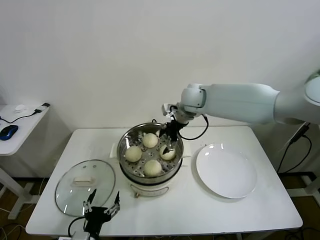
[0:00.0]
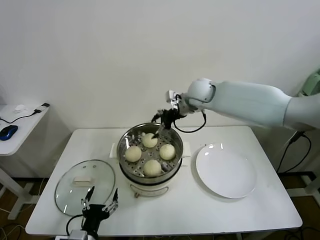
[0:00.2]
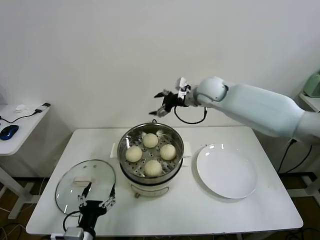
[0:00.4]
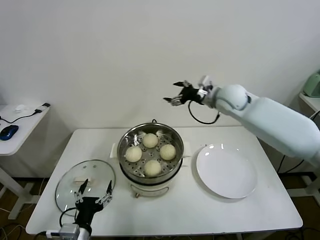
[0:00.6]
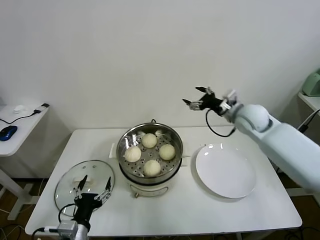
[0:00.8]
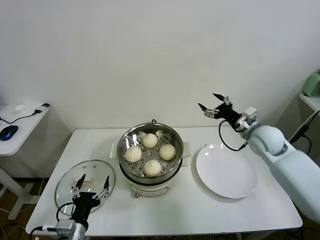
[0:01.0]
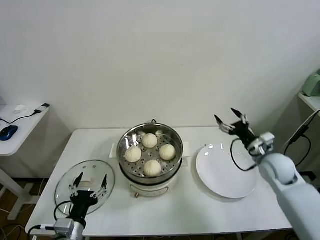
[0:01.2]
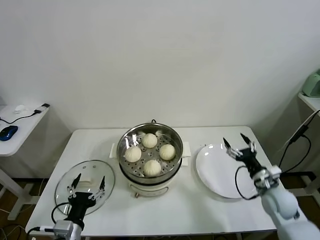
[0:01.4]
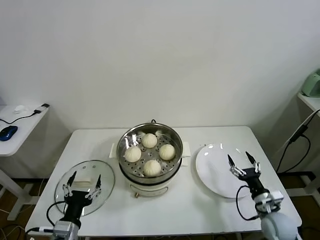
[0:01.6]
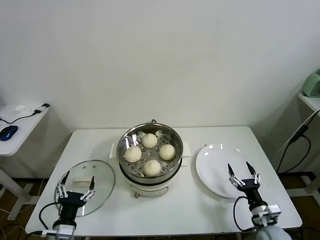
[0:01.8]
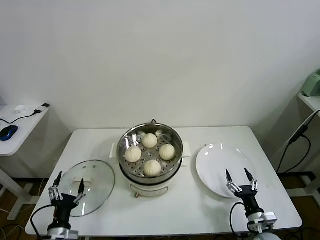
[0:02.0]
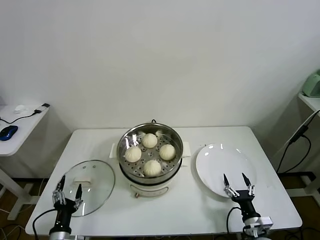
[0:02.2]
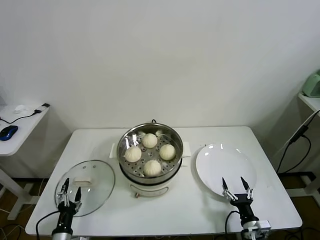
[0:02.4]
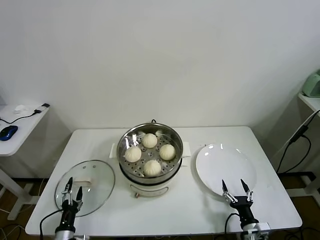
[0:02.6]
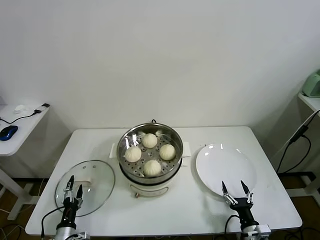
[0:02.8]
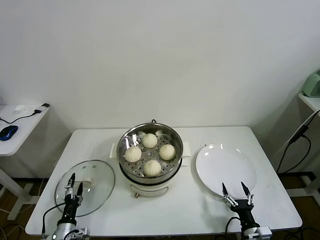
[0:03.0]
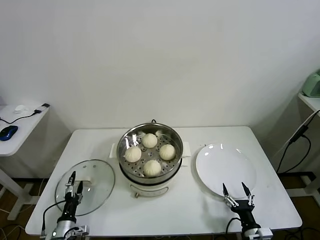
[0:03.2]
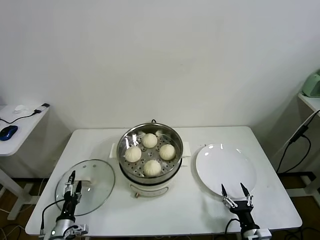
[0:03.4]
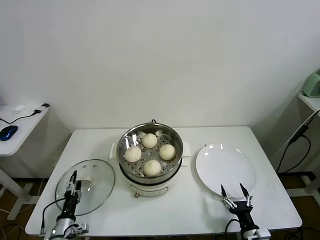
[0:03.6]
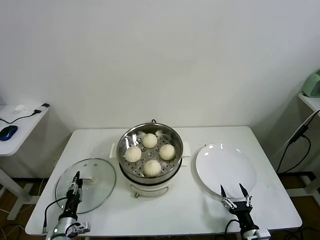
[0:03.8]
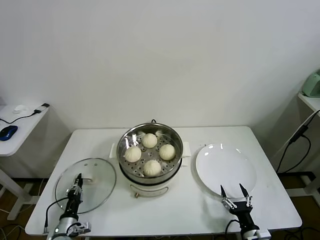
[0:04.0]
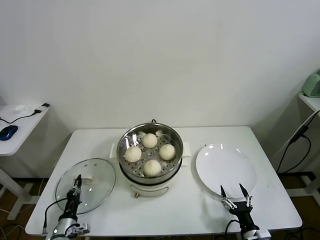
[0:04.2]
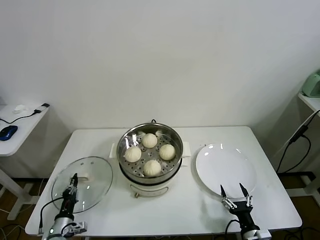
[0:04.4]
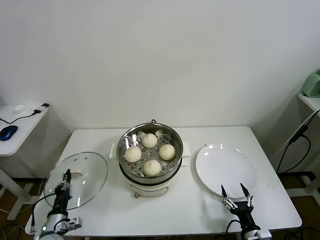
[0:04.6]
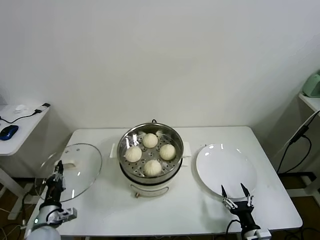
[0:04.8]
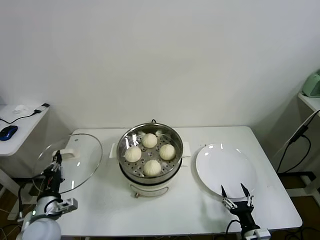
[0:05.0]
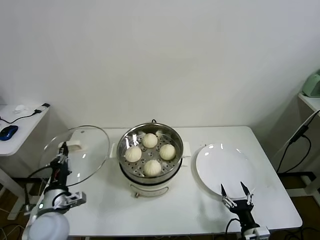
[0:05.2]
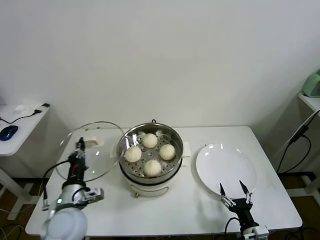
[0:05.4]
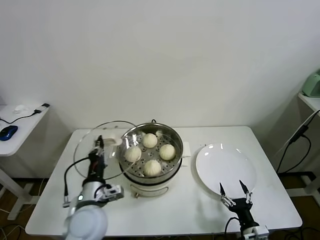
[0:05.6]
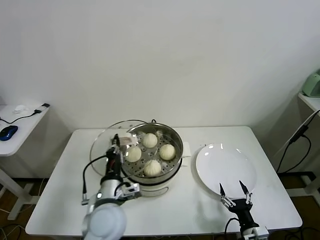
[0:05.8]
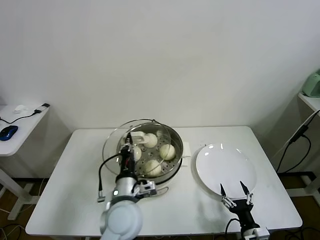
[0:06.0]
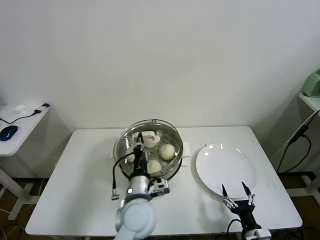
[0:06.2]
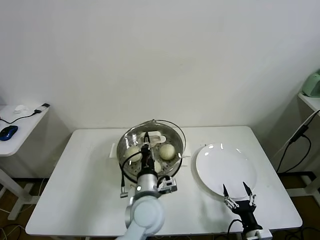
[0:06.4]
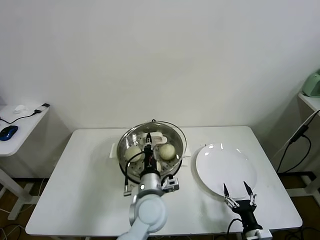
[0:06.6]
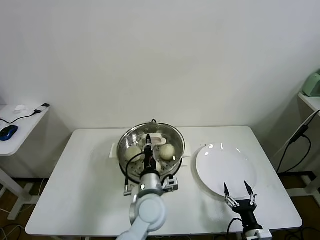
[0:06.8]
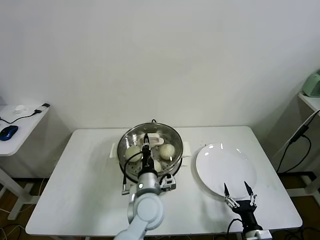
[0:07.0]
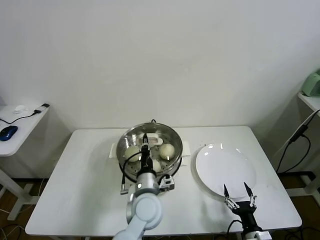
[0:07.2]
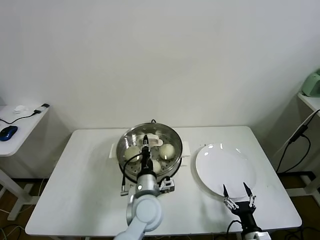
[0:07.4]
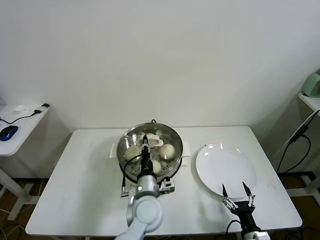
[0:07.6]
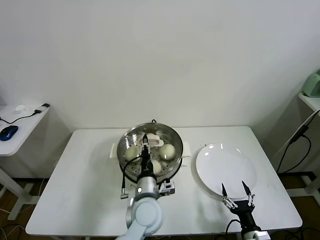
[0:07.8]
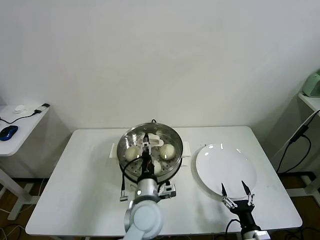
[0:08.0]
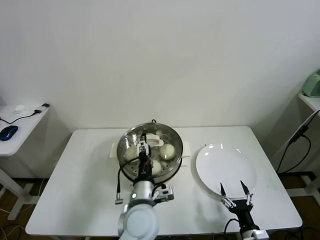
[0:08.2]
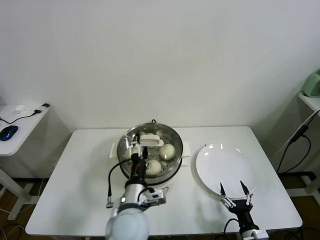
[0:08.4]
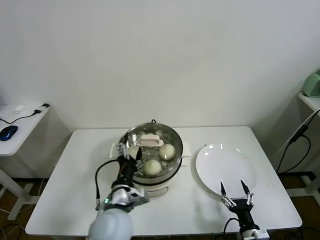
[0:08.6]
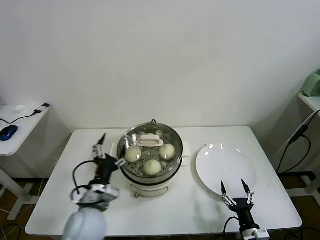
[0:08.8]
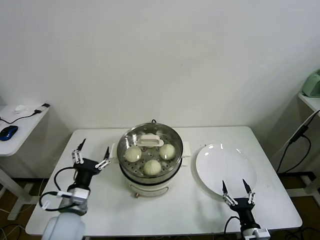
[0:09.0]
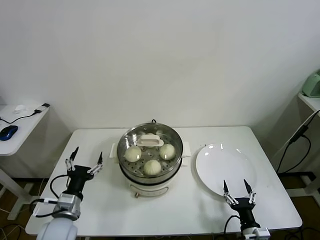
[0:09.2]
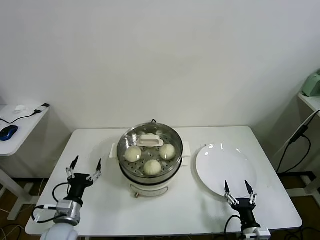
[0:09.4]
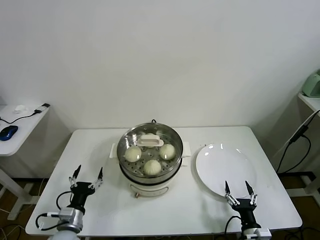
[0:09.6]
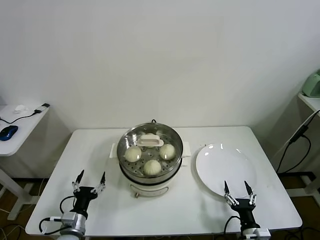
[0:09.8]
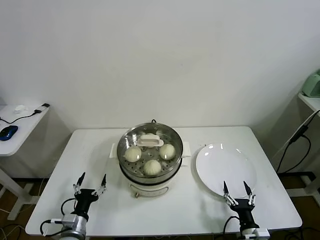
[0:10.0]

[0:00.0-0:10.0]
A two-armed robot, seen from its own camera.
Task of the whole recording: take steamed baozi put them in steamer.
Step, 0:00.0 to 0:04.2: Grasp the pot lid with left gripper.
Step, 0:04.4 to 0:08.2: Place the pot lid on the steamer with left gripper.
0:00.0 to 0:01.4: The left gripper ends up roughly 5 cm from where it was; the right gripper goes approximately 40 cm to the right, downward and backward.
0:01.4 to 0:02.8: The right gripper is displaced backward, downward and to the left by some 20 cm, while the left gripper goes about 20 cm downward and to the left.
0:02.8 to 0:04.2: The left gripper closes up.
0:04.2 to 0:05.8: The left gripper travels upward and to the right by roughly 30 cm.
0:05.8 to 0:07.2: The left gripper goes approximately 10 cm to the right.
0:07.2 to 0:08.6: The left gripper travels to the left and backward by about 10 cm, and opens.
0:08.6 to 0:10.0: The left gripper shifts about 25 cm to the left and downward.

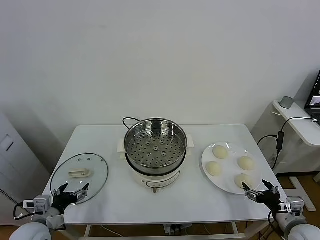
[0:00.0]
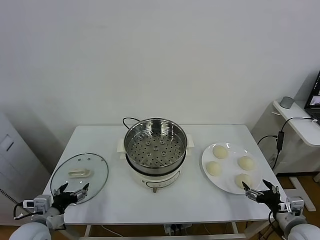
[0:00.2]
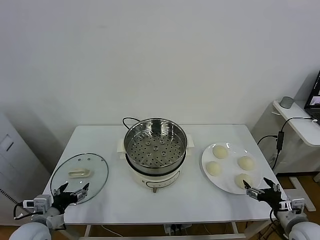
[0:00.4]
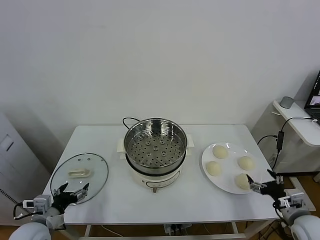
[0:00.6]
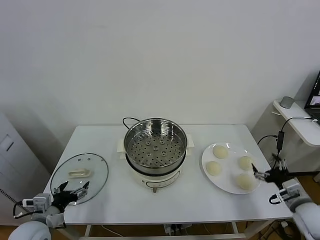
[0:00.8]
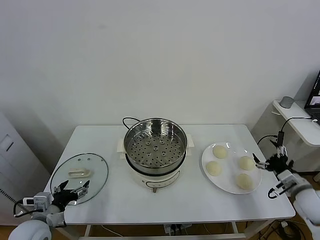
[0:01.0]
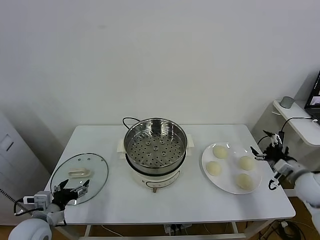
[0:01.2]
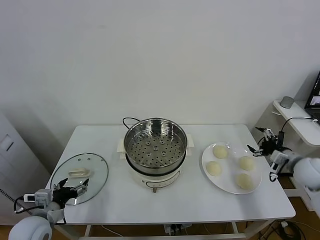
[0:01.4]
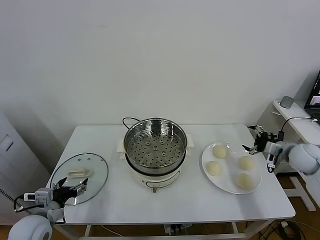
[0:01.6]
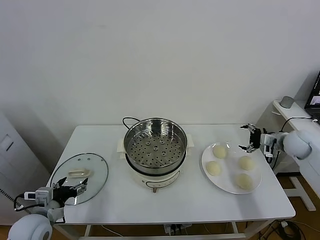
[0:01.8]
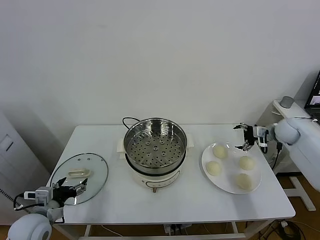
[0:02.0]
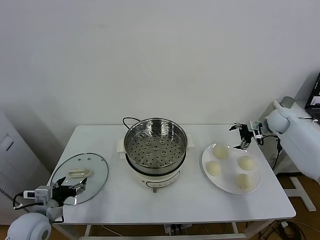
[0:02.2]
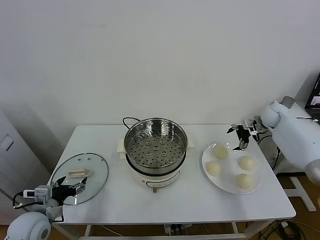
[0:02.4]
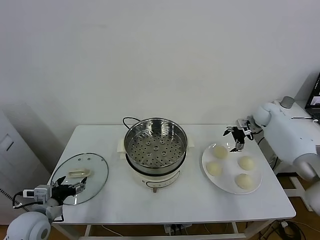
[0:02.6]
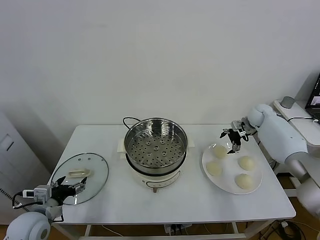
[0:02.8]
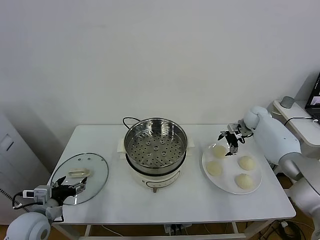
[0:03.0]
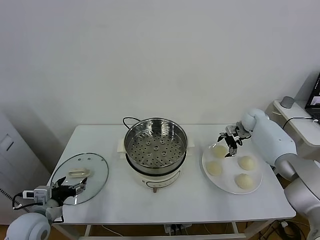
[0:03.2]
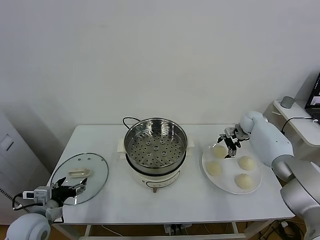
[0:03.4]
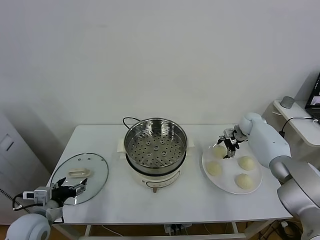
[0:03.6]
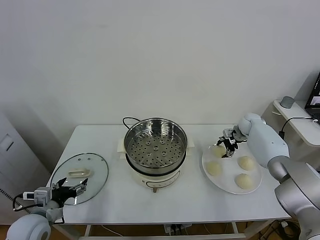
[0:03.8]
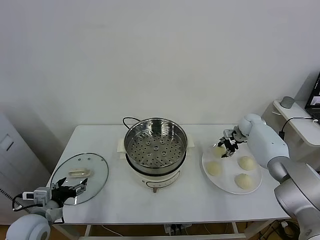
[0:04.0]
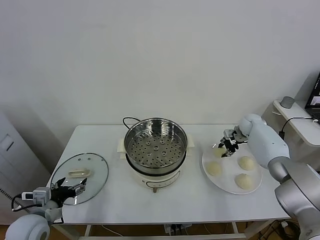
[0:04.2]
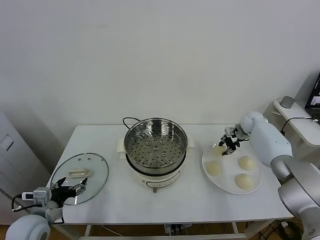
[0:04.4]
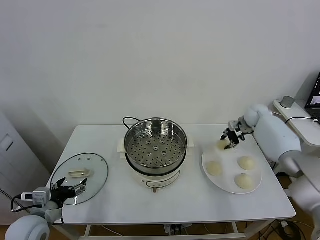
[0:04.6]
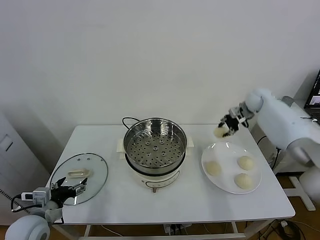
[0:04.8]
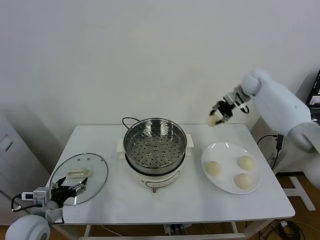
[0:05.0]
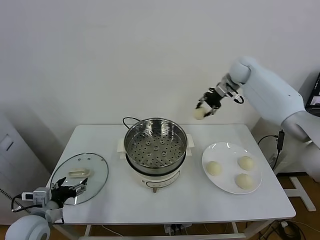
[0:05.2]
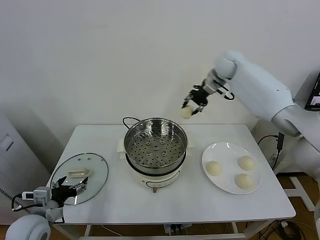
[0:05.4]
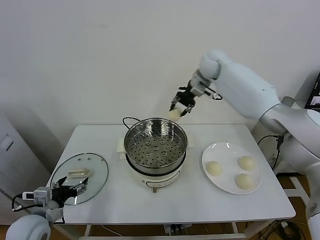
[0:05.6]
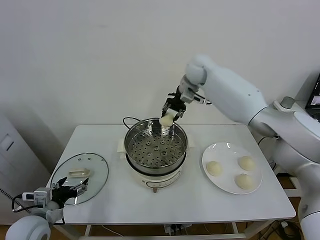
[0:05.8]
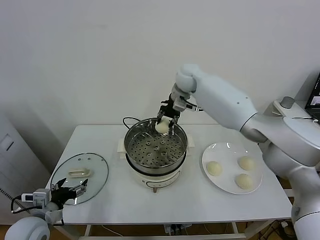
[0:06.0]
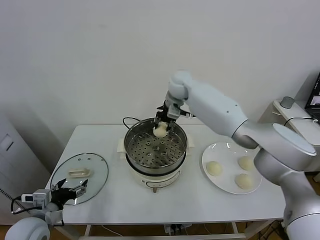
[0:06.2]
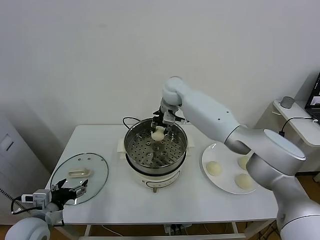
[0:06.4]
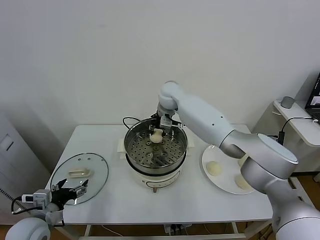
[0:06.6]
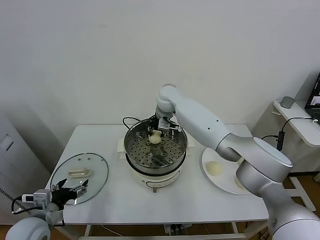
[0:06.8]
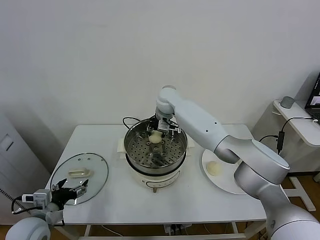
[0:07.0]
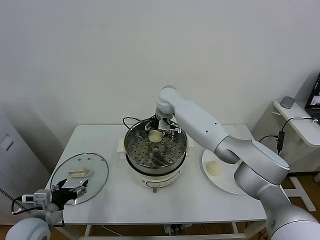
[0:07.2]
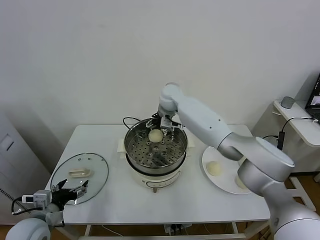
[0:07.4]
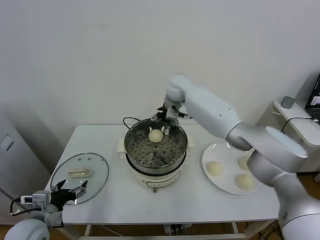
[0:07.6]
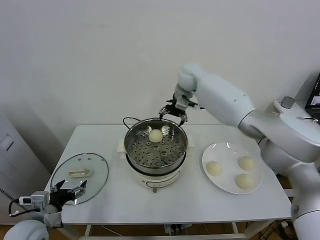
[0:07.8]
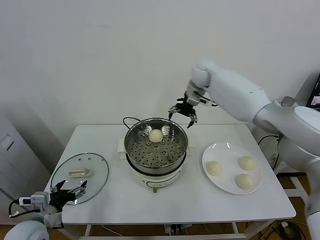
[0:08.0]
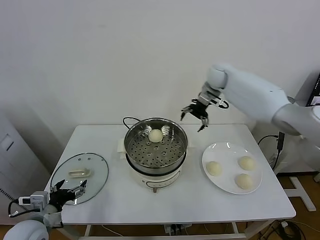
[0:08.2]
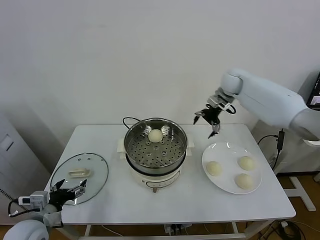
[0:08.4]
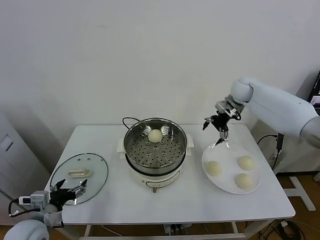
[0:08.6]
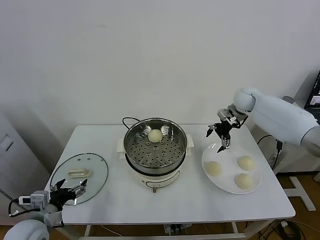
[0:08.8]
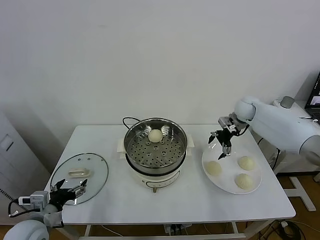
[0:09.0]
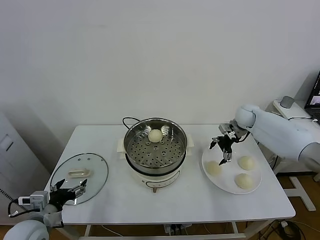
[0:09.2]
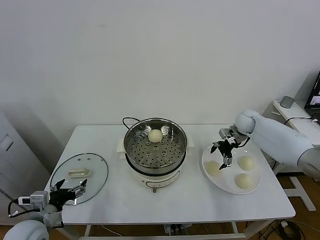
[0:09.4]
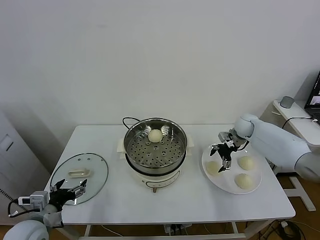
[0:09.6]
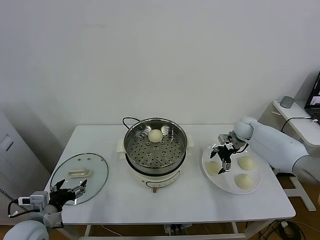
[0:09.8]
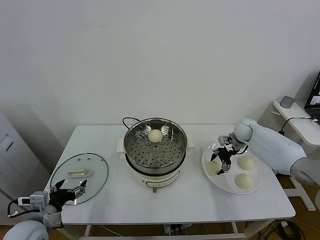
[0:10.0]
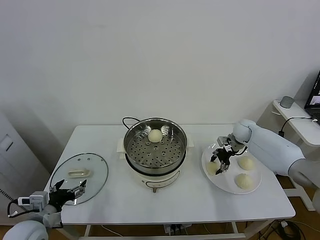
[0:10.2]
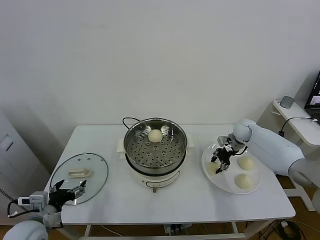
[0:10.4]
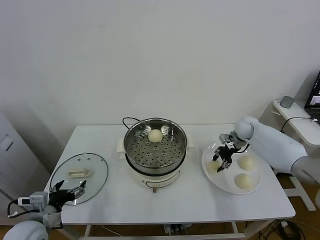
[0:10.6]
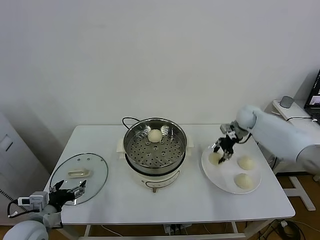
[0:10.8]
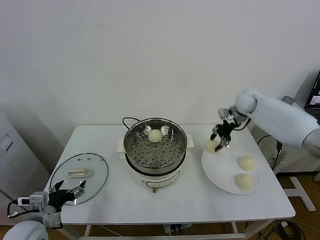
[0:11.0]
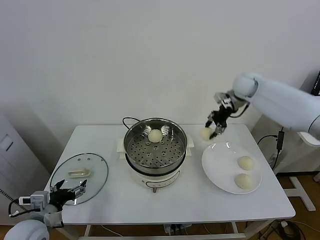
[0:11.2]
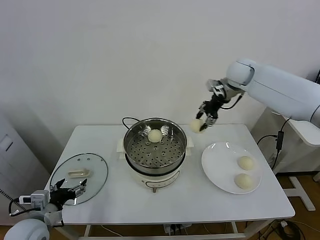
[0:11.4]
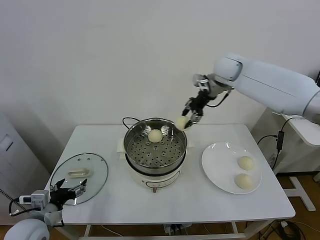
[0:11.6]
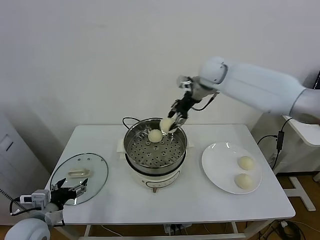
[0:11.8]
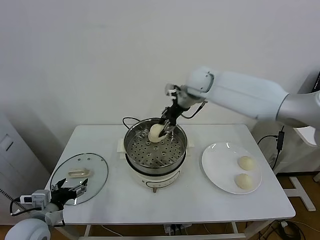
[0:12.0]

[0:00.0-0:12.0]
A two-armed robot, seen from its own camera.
Task of the whole recording: take steamed baozi put them in steamer.
Step, 0:00.0 to 0:04.0: Grasp the baozi in the plate with right gripper.
Step, 0:04.4 to 0:07.2: Place the baozi on the steamer with right gripper.
Step, 0:07.4 to 0:10.4: Grasp the baozi in the plate with right gripper.
0:01.6 to 0:03.0: The right gripper heads forward and to the left, covering approximately 20 cm.
0:03.0 to 0:04.4: The right gripper closes its fingers.
0:04.4 to 0:06.0: The right gripper goes some 35 cm to the left and upward.
0:06.0 to 0:07.6: The right gripper opens its fingers.
0:07.6 to 0:09.0: The right gripper goes about 30 cm to the right and downward.
0:09.0 to 0:10.4: The right gripper heads downward, covering some 10 cm, and closes.
0:10.4 to 0:12.0: The right gripper heads to the left and upward, covering approximately 35 cm.
